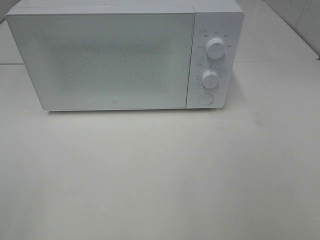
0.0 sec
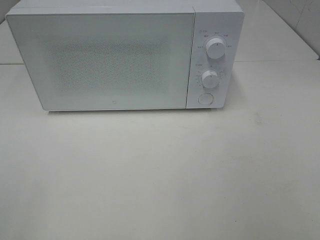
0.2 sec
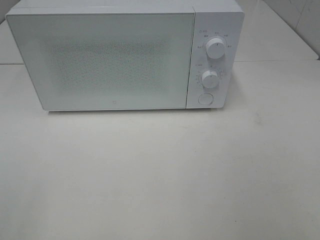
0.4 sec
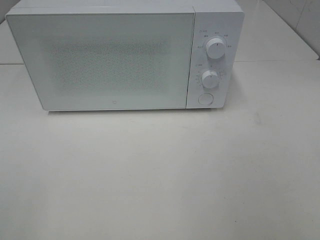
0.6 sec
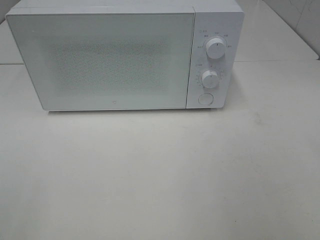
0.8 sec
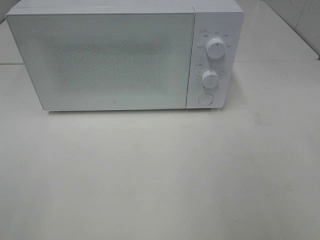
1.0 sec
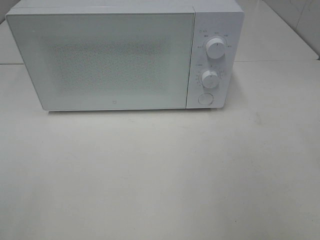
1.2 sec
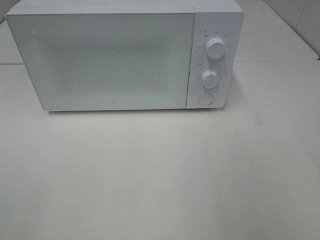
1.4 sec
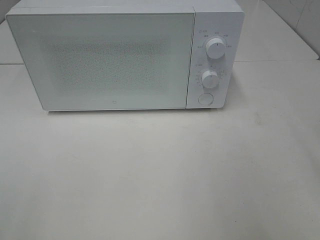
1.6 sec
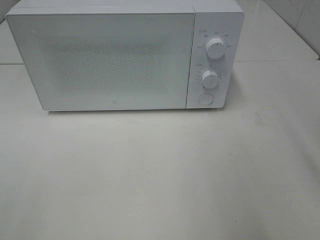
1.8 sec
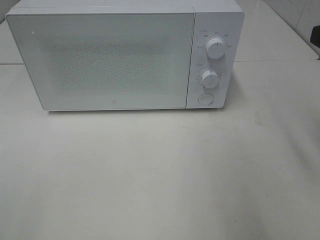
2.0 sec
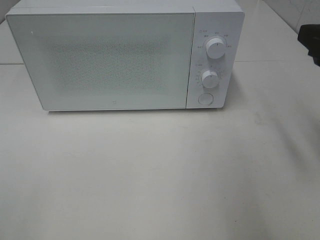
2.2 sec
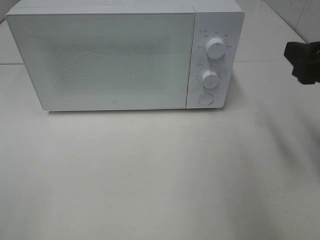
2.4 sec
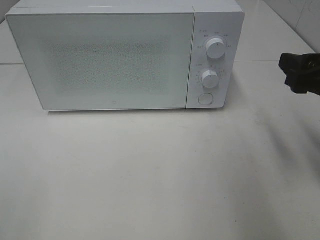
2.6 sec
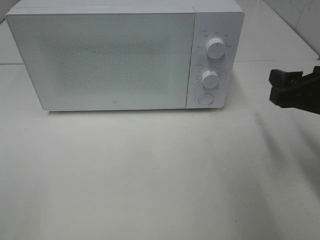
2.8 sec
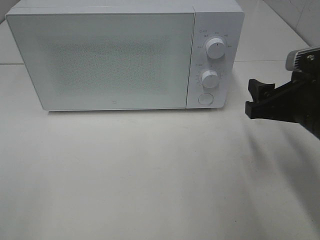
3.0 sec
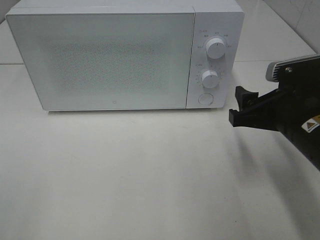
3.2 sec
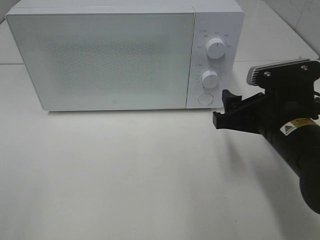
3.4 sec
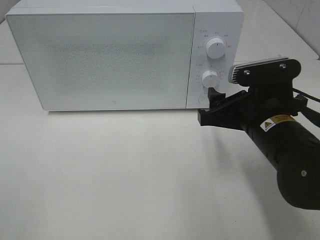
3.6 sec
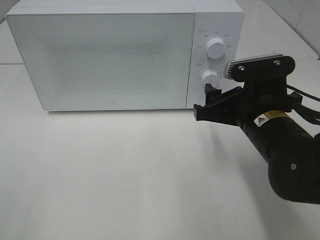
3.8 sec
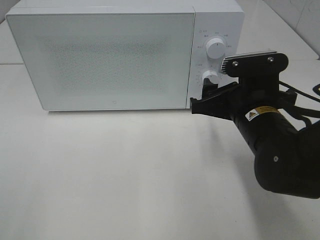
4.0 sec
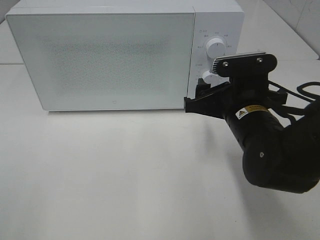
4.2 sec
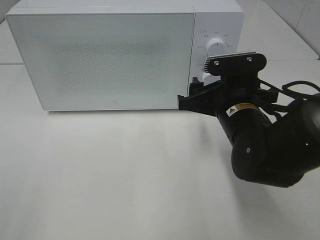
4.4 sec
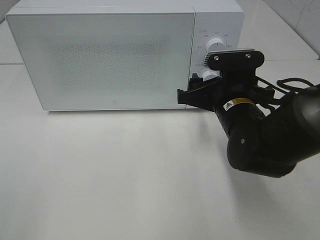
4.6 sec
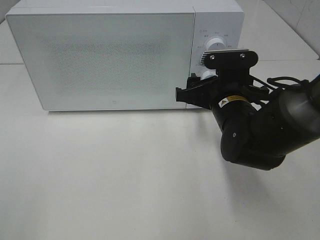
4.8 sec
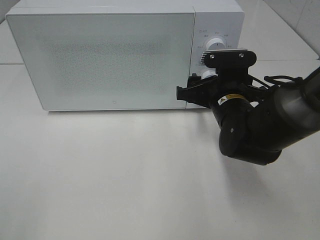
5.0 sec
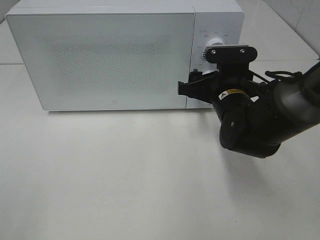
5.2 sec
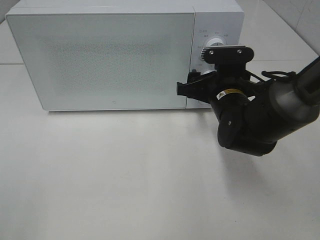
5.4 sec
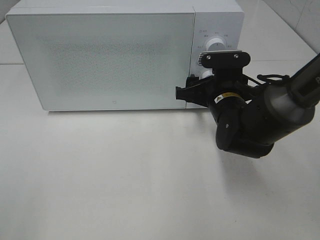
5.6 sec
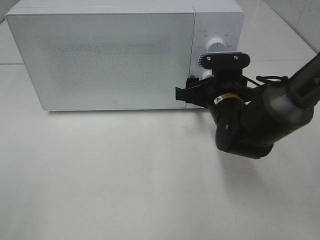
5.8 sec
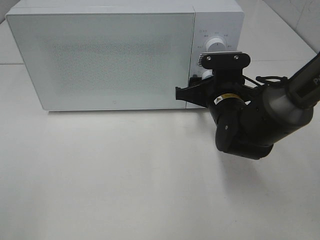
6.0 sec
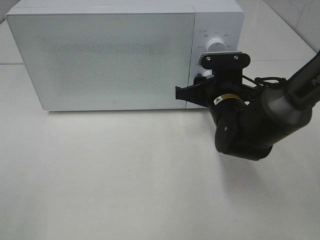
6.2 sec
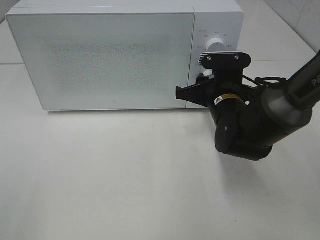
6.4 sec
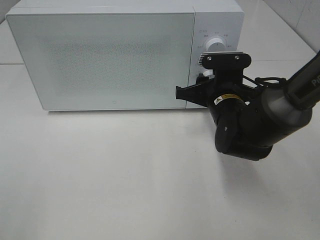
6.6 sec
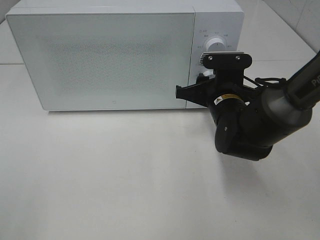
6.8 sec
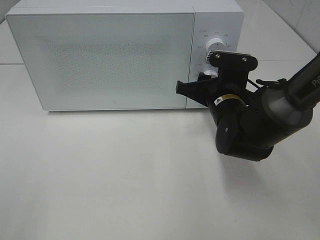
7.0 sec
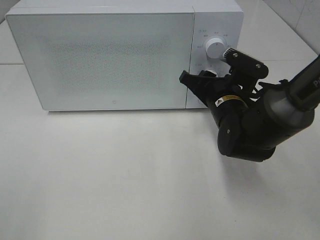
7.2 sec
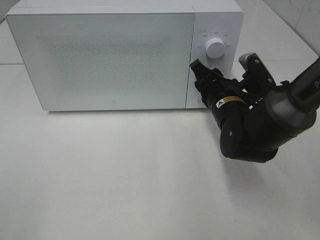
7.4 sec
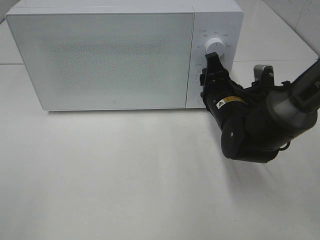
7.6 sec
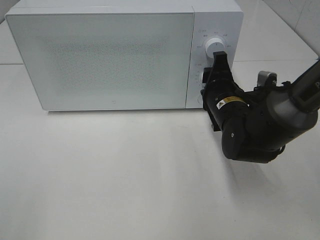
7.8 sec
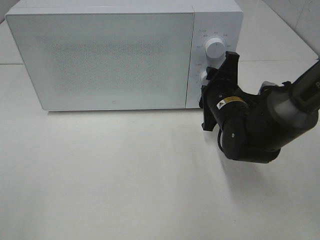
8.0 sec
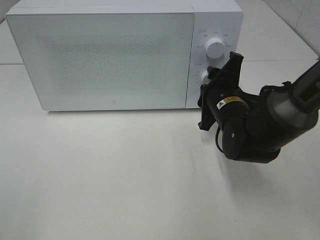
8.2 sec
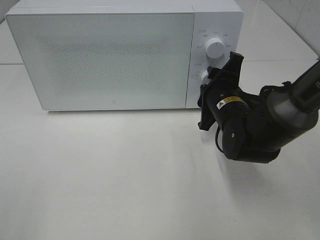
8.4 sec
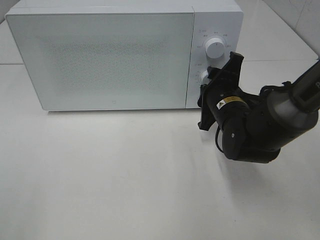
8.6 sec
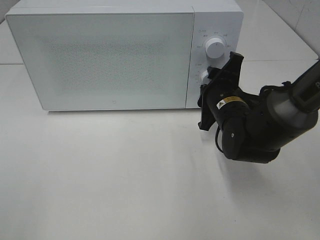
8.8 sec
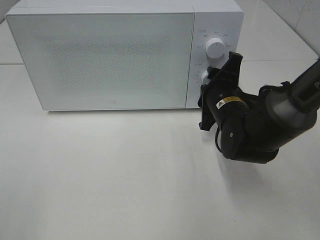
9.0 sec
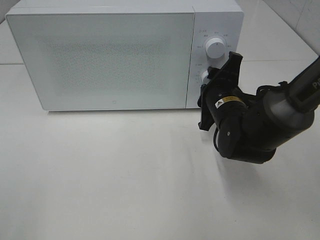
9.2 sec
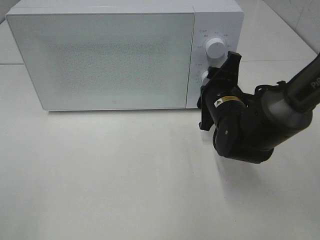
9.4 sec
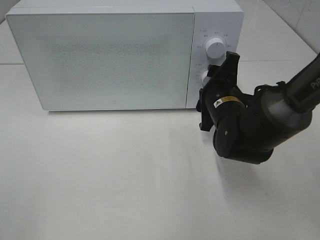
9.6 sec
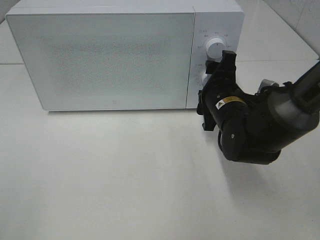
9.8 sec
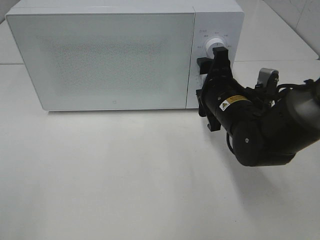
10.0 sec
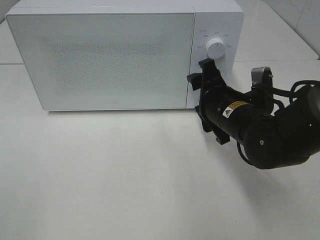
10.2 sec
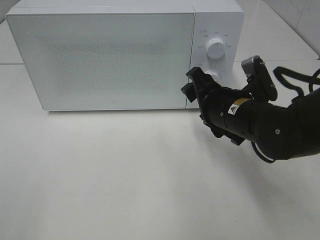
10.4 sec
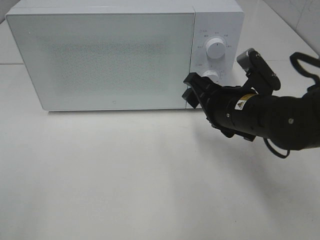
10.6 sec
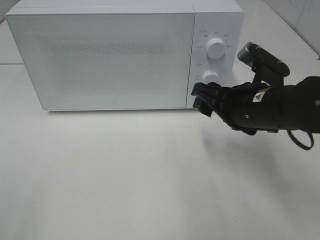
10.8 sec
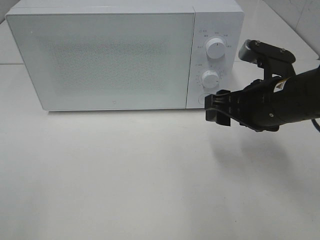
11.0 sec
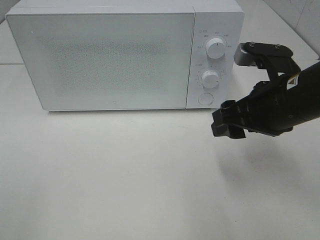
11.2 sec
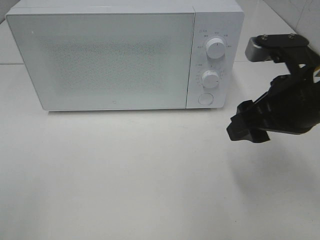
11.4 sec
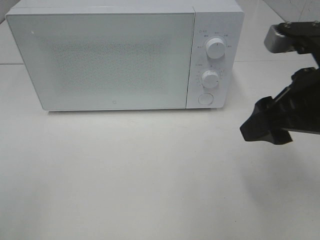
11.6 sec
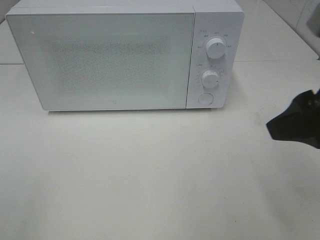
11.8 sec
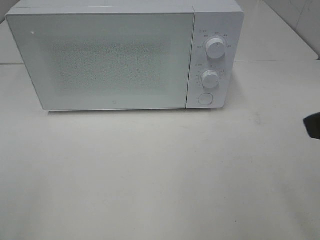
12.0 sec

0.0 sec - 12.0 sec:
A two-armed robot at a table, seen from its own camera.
Task of the whole recording: Heat the burger.
Step, 0.0 sec - 9.4 sec: Right hand: twist timer button.
1.6 sec - 3.0 sec: The right gripper shifts approximately 15 cm downward and forward.
3.0 sec - 4.4 sec: The right gripper moves to the left, approximately 10 cm.
4.4 sec - 6.0 sec: The right gripper travels forward by about 5 cm.
9.0 sec - 10.4 sec: The right gripper moves approximately 5 cm.
10.4 sec - 12.0 sec: The right gripper travels upward, backward and to the right by some 25 cm.

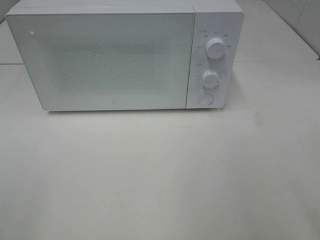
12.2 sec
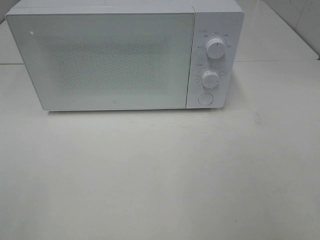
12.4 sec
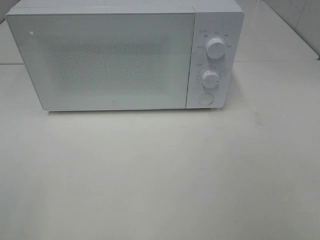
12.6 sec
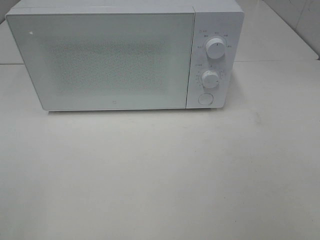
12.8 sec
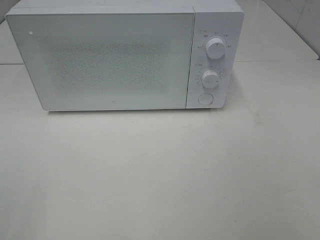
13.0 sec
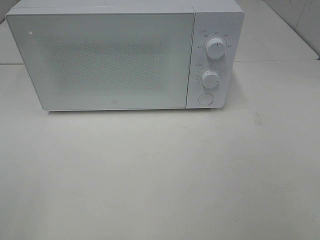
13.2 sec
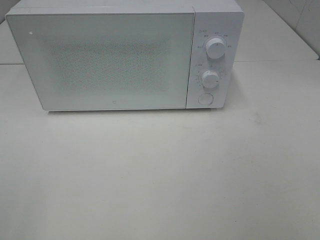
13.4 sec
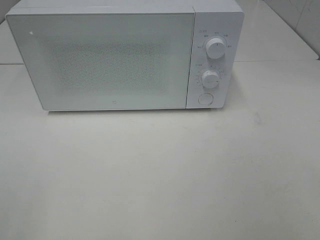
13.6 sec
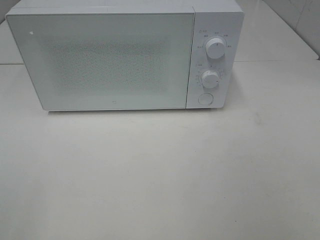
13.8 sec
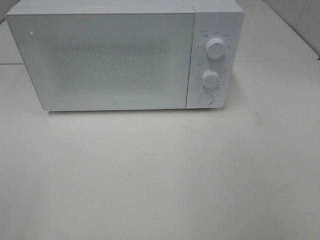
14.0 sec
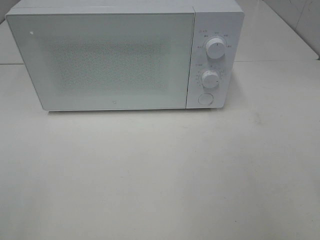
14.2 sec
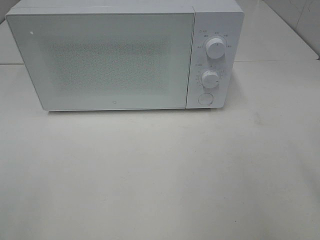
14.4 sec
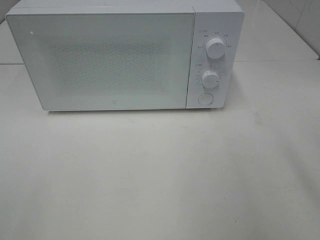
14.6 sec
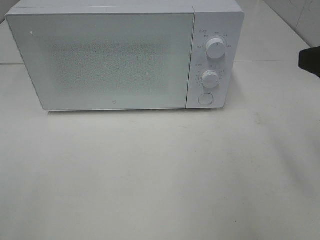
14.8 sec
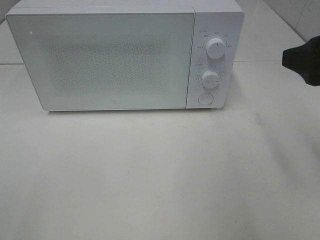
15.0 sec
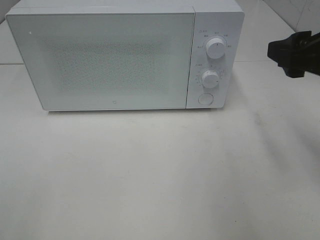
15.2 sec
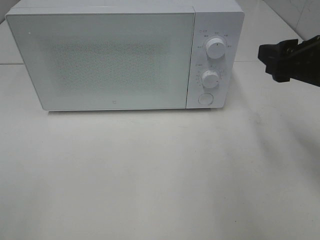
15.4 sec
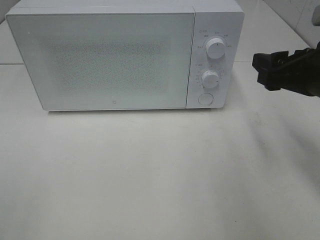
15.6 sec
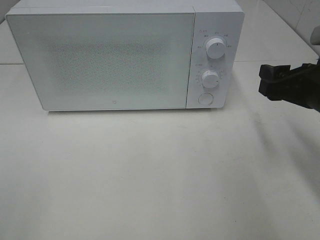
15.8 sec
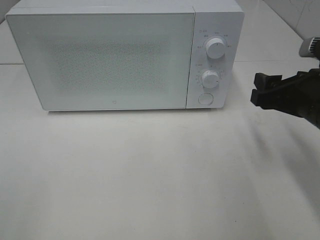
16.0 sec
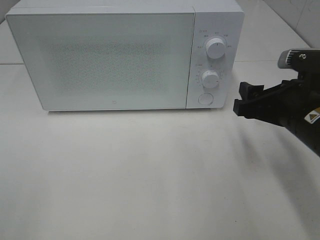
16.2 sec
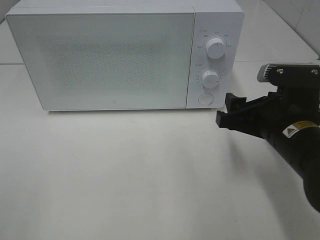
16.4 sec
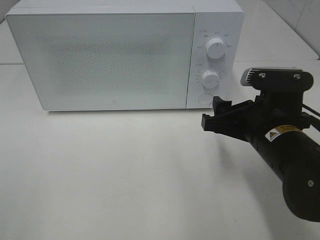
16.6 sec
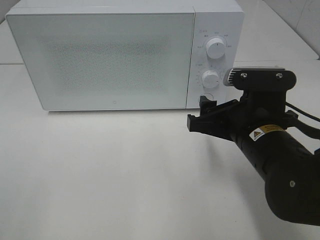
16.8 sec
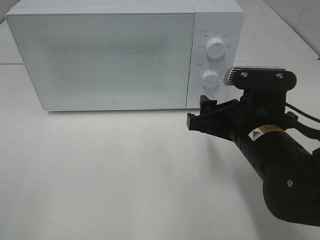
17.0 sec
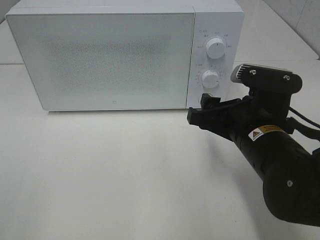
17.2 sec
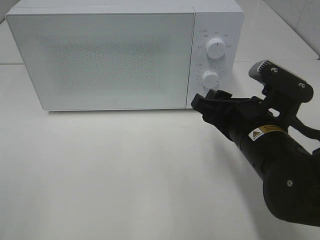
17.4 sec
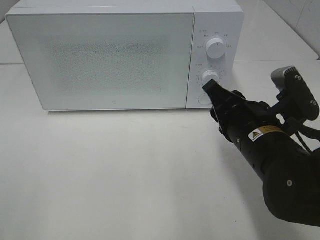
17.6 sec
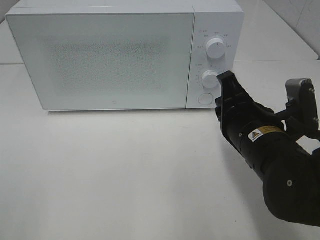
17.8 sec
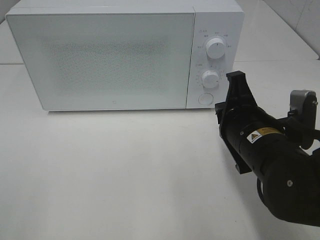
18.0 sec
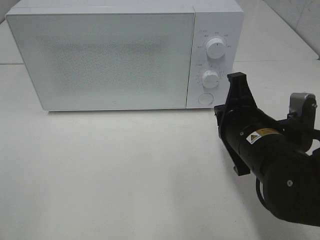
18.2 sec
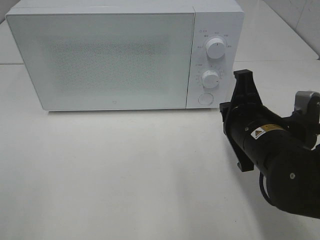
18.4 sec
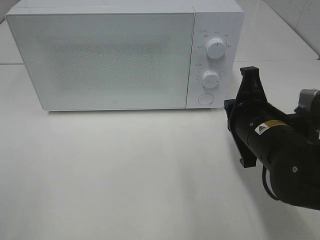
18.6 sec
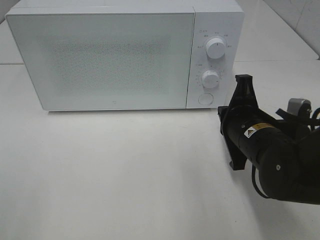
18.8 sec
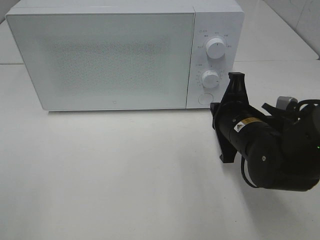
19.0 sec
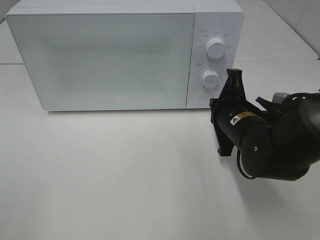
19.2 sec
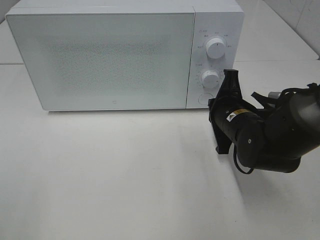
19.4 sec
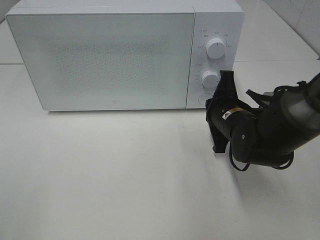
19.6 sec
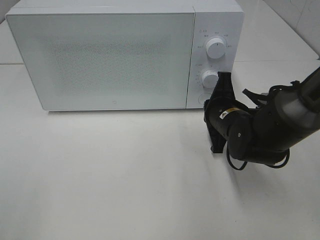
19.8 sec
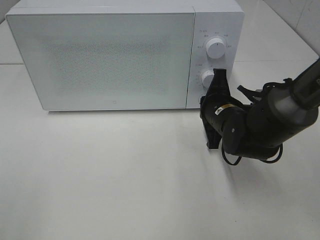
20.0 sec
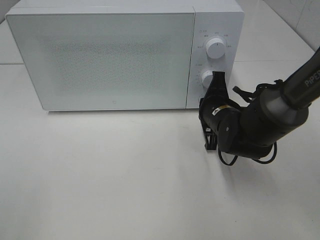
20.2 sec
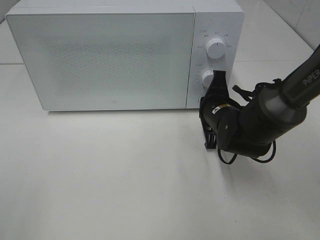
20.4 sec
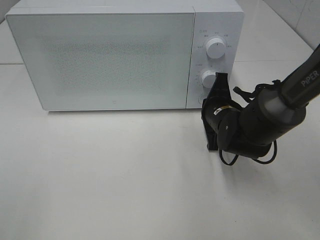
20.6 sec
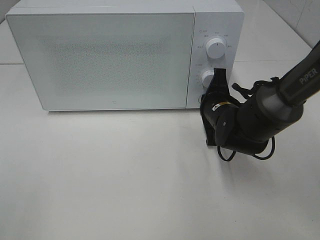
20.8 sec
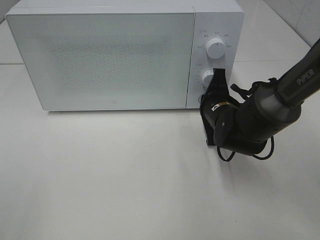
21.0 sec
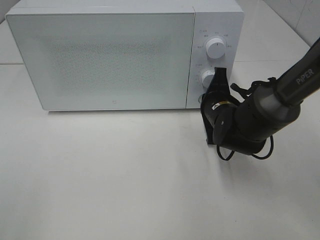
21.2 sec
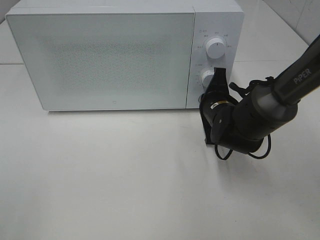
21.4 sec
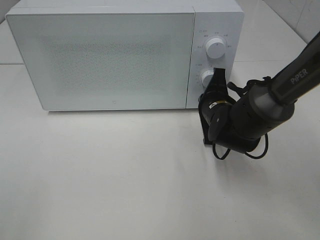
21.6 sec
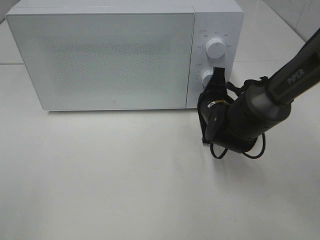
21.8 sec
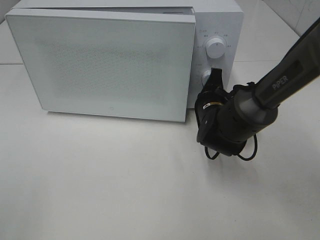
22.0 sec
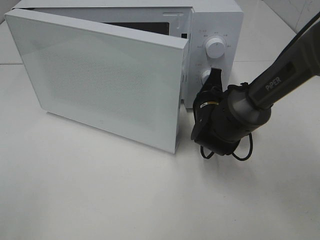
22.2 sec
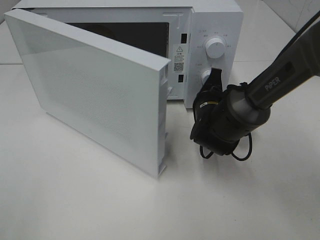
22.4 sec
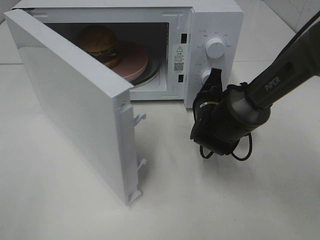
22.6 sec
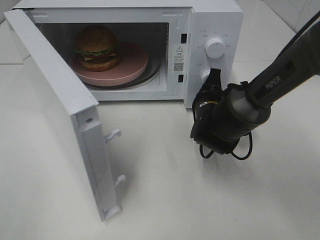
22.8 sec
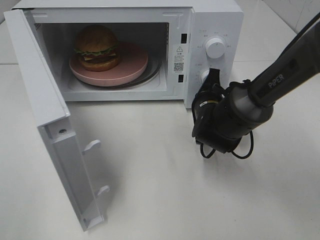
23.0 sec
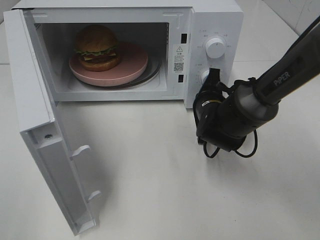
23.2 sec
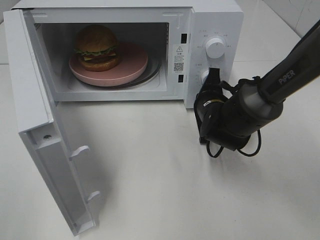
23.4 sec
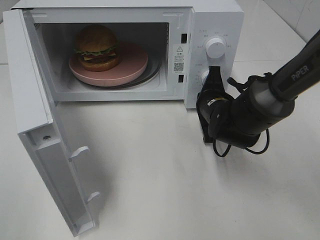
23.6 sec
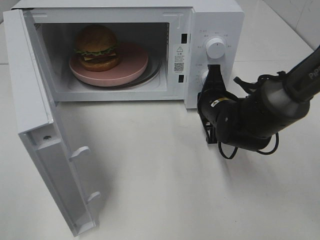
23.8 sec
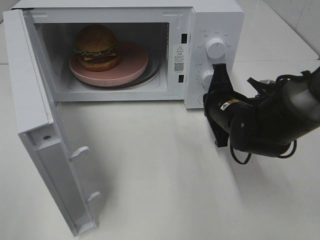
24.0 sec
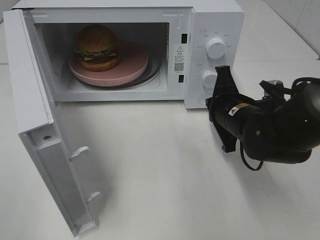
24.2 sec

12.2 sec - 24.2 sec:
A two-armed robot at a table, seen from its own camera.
Task of the whole recording: Heat the burger.
Step, 12.2 sec - 23.8 sec: Right hand: press the switch.
13.8 sec - 15.2 sec: The right gripper shifts roughly 20 cm forward.
15.2 sec - 16.6 sec: The right gripper is displaced downward and to the left by approximately 15 cm.
16.6 sec - 18.2 sec: The right gripper closes its fingers.
18.2 sec - 19.8 sec: The right gripper shifts about 10 cm forward and downward.
19.8 sec - 21.2 sec: The grippers move only a little.
22.6 sec - 24.2 sec: The right gripper is displaced backward by about 5 cm.
